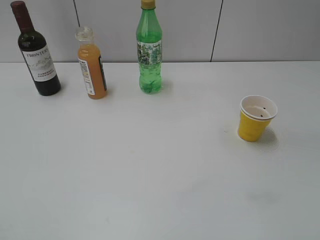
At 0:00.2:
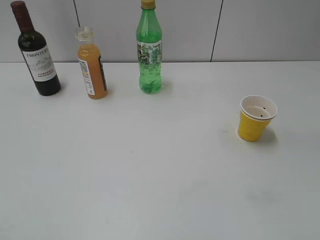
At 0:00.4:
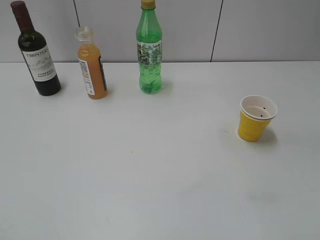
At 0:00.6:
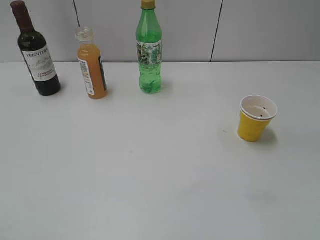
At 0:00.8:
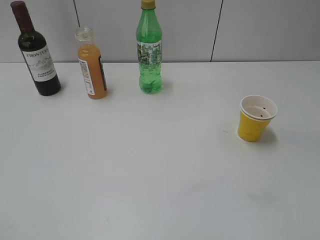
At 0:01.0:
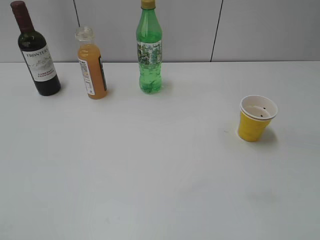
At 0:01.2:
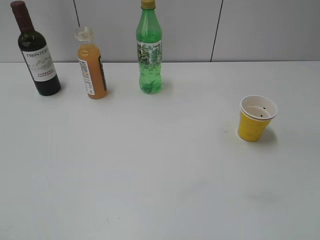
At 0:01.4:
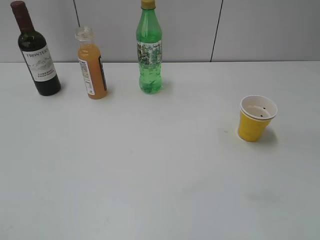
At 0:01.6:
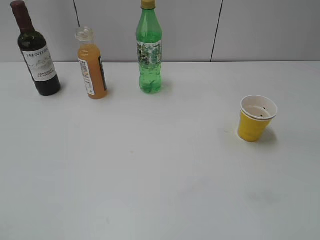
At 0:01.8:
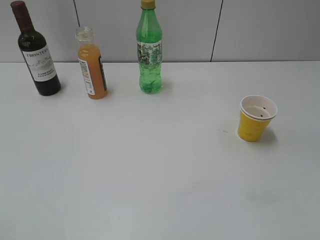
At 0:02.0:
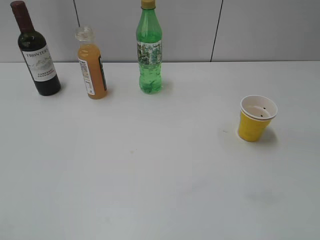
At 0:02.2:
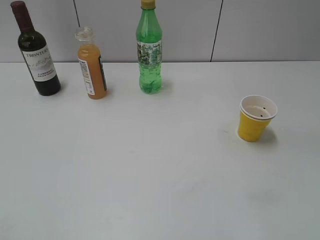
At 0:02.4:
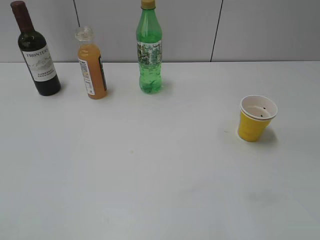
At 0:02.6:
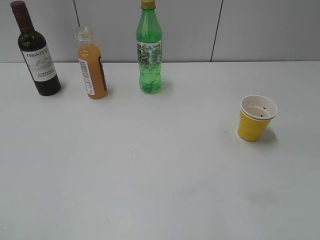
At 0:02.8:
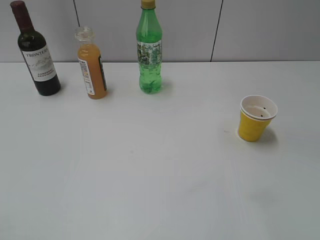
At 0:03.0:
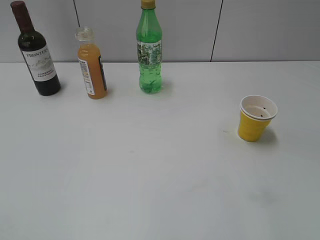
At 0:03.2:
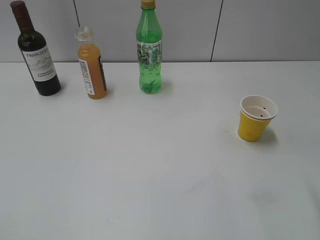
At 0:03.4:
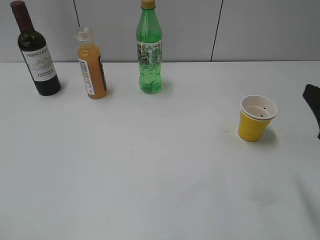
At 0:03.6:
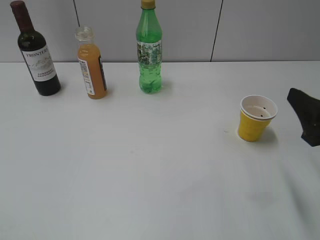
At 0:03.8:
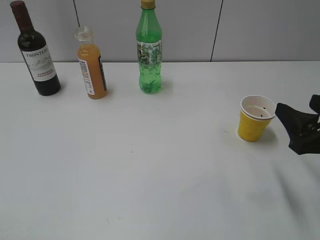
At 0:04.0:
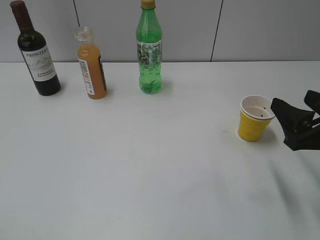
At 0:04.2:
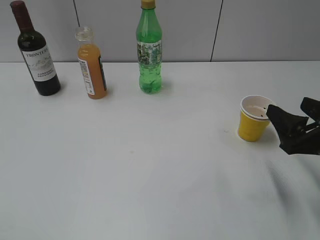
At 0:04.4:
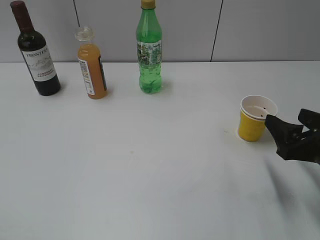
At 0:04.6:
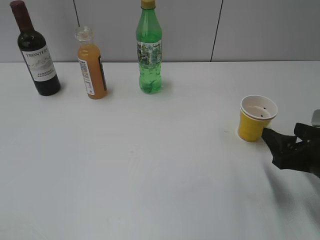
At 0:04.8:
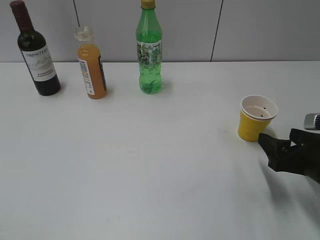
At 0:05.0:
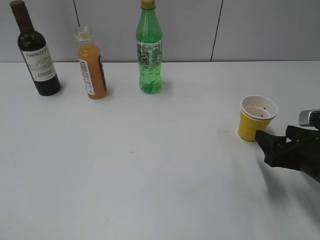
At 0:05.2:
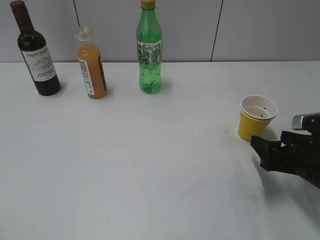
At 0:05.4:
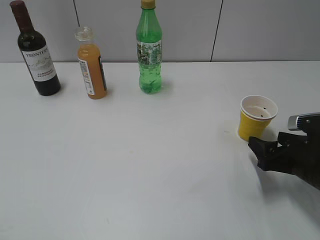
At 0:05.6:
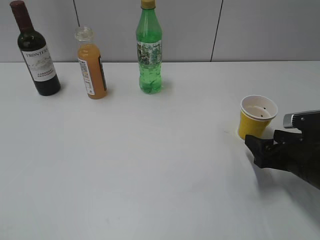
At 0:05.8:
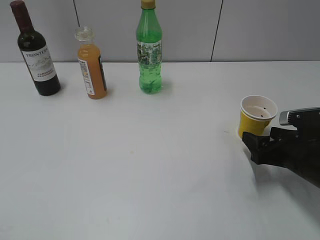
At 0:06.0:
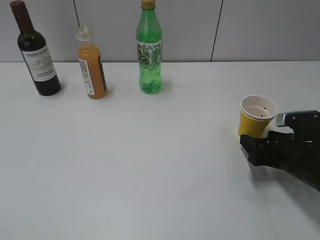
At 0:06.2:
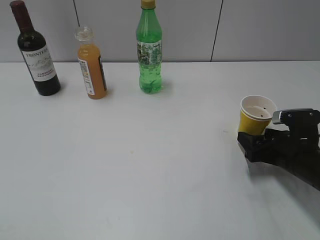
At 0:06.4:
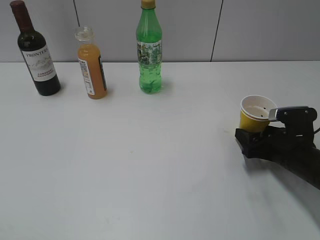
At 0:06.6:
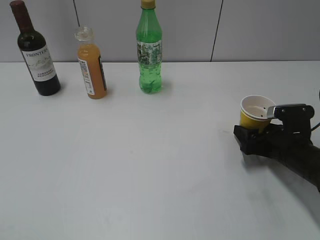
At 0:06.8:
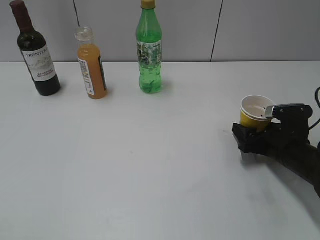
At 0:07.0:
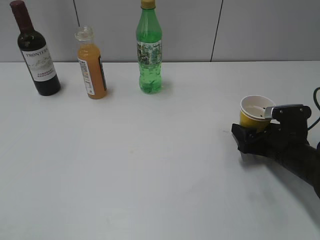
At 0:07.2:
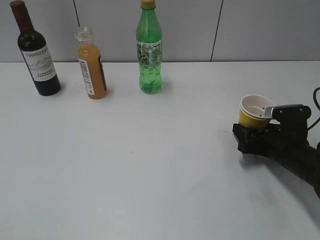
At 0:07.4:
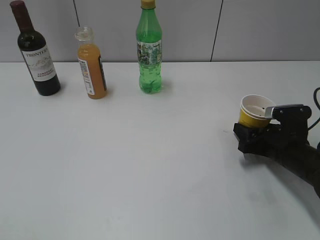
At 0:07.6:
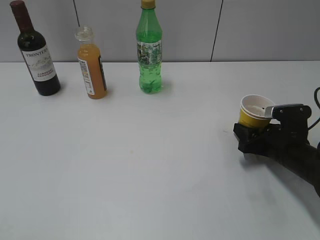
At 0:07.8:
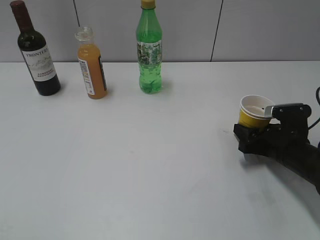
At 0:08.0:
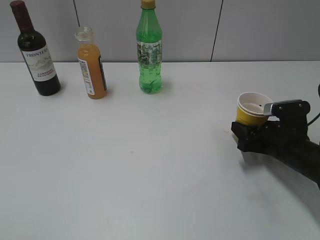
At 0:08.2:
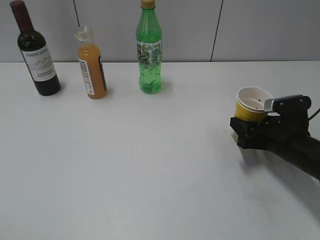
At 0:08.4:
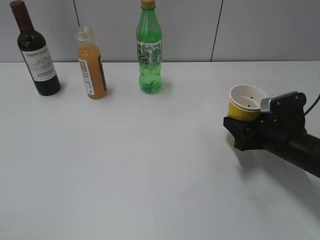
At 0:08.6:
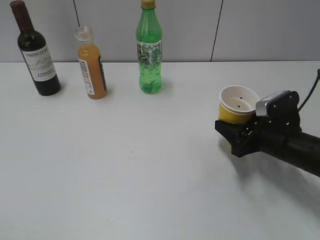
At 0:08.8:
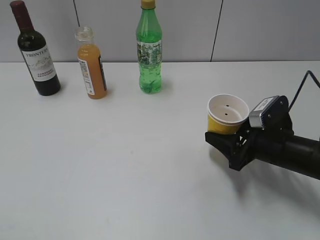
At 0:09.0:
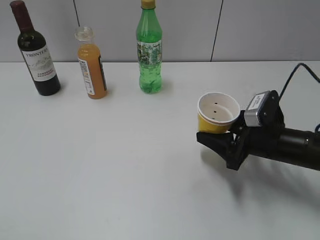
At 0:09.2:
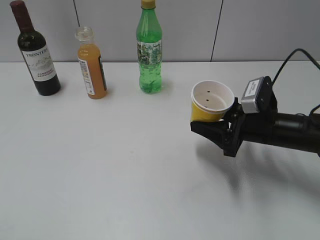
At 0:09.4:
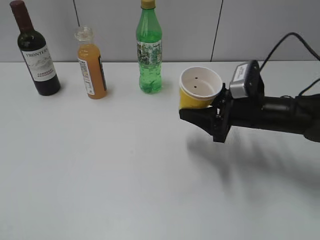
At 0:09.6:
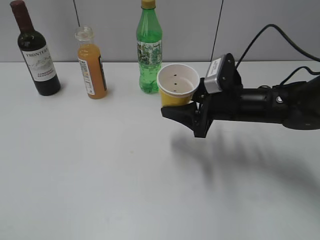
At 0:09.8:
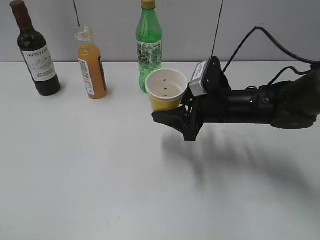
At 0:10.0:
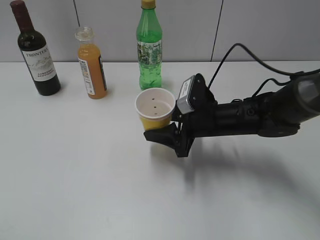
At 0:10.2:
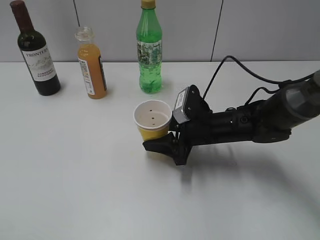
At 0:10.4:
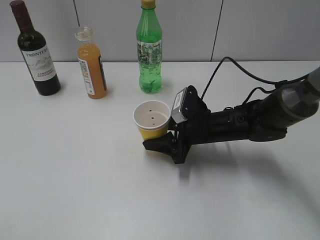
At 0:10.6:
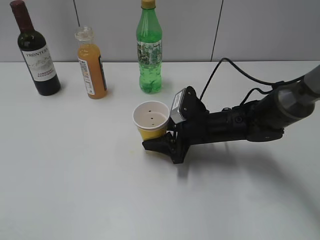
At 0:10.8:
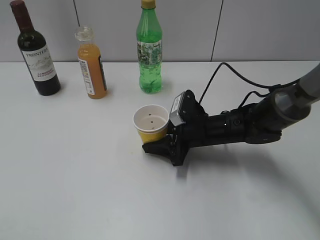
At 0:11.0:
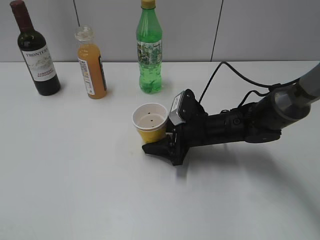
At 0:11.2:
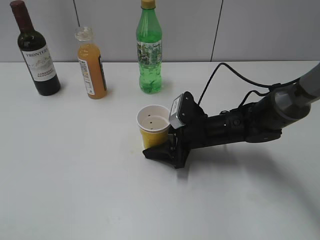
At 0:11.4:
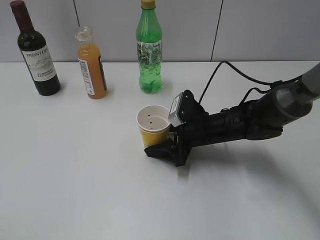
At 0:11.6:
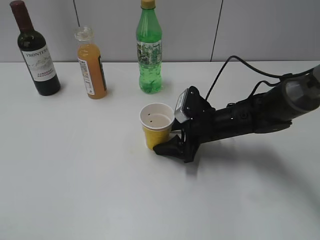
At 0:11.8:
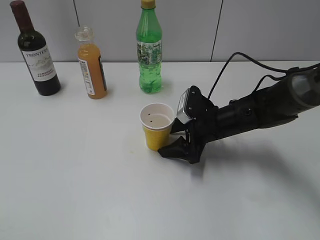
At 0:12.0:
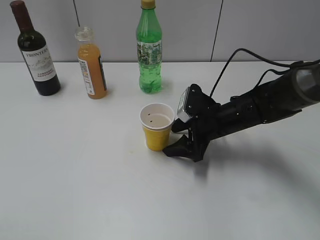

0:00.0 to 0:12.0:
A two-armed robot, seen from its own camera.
Step, 0:03.4 to 0:07.6: Grasp the yellow paper cup with right gripper.
0:03.0 to 0:04.4: The right gripper is displaced downward and forward by roughly 15 cm.
0:04.4 to 0:06.0: The right gripper moves downward, some 10 cm.
0:06.0 to 0:07.6: The right gripper closes up.
0:07.6 to 0:09.0: The right gripper moves some 5 cm.
0:09.0 to 0:10.4: The right gripper heads to the left and forward, covering some 10 cm.
0:10.4 to 0:12.0: The right gripper opens up.

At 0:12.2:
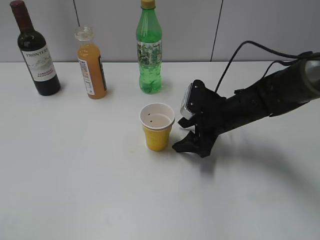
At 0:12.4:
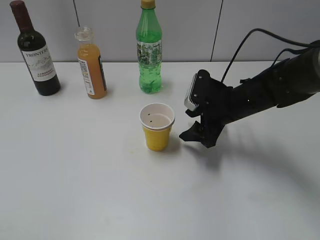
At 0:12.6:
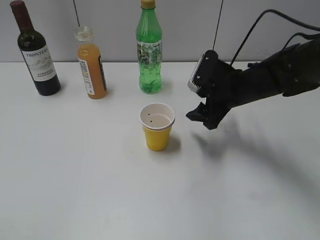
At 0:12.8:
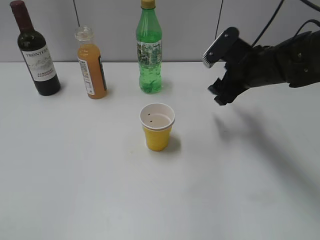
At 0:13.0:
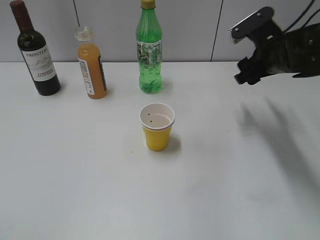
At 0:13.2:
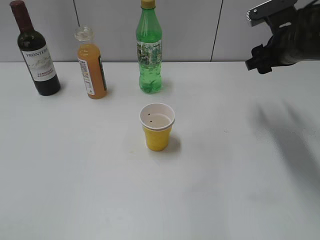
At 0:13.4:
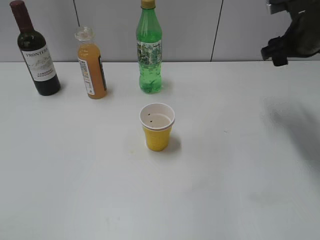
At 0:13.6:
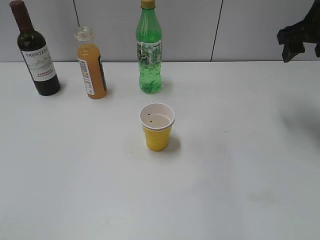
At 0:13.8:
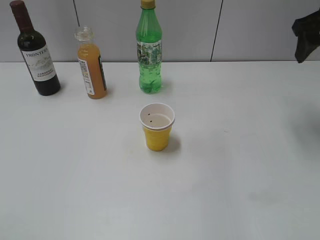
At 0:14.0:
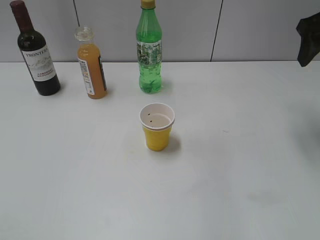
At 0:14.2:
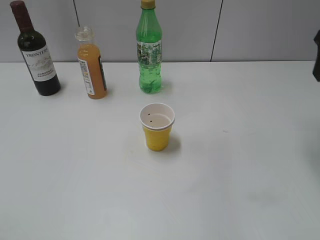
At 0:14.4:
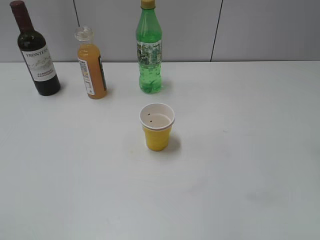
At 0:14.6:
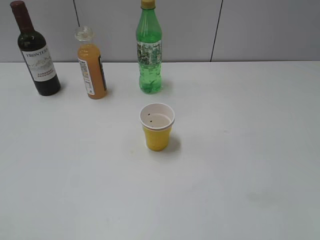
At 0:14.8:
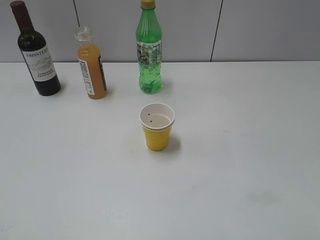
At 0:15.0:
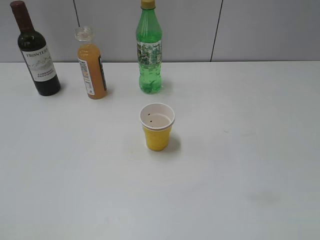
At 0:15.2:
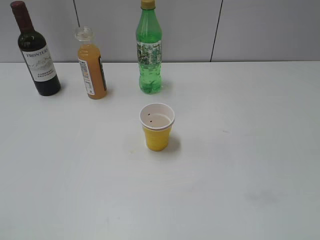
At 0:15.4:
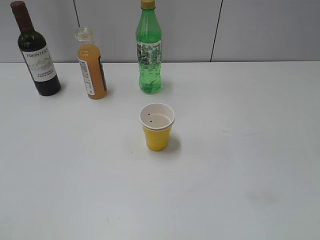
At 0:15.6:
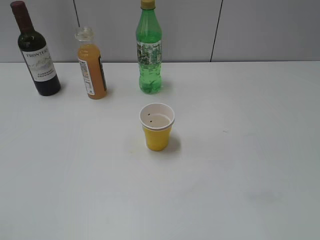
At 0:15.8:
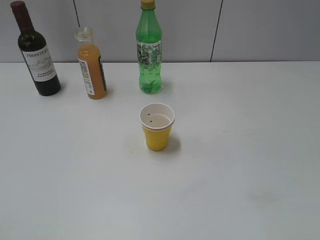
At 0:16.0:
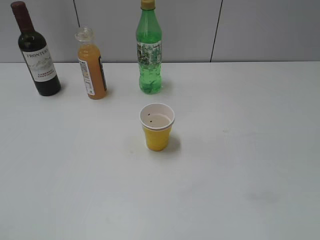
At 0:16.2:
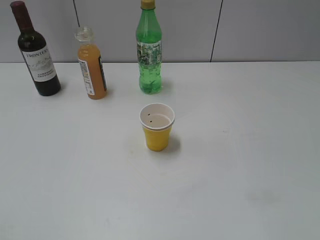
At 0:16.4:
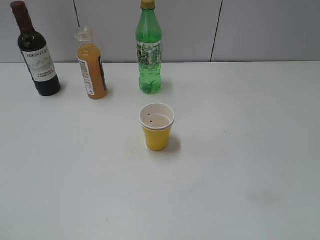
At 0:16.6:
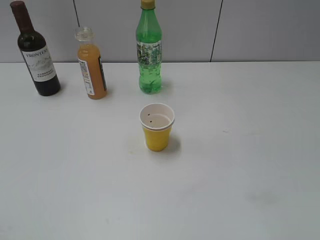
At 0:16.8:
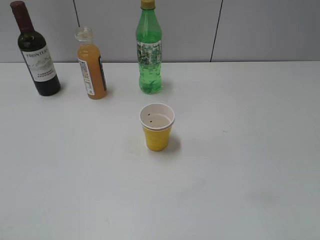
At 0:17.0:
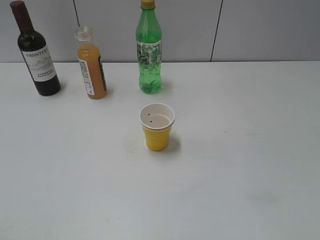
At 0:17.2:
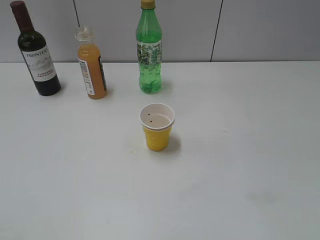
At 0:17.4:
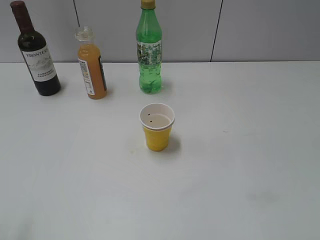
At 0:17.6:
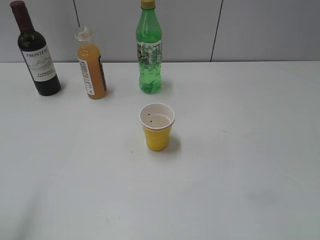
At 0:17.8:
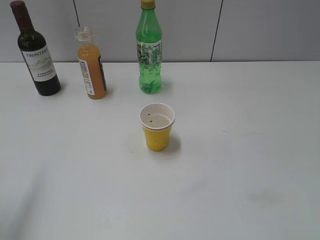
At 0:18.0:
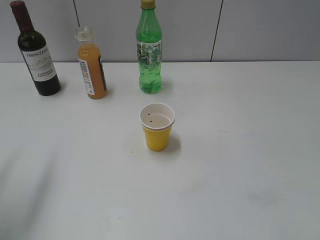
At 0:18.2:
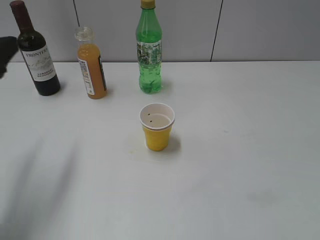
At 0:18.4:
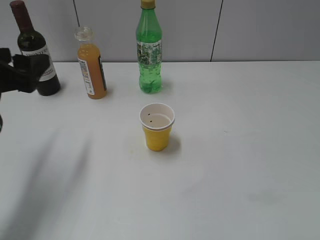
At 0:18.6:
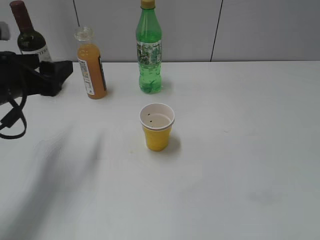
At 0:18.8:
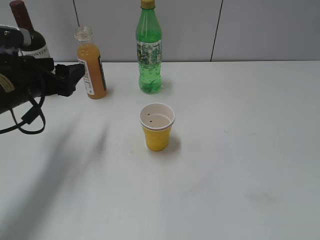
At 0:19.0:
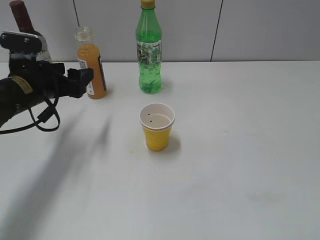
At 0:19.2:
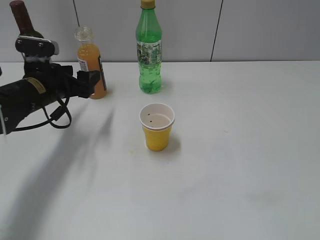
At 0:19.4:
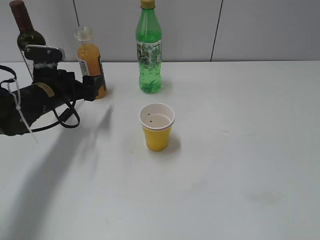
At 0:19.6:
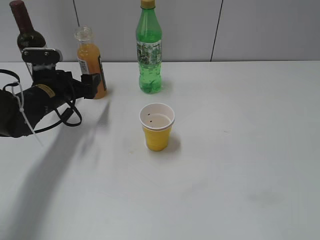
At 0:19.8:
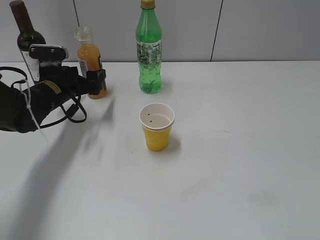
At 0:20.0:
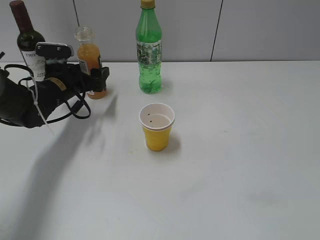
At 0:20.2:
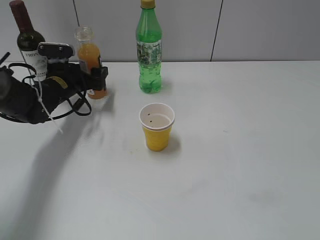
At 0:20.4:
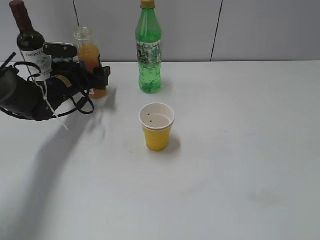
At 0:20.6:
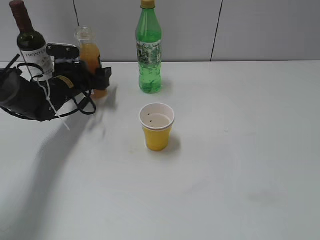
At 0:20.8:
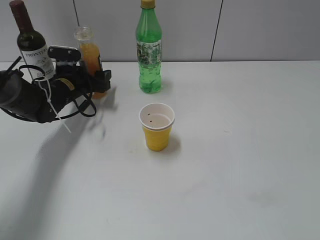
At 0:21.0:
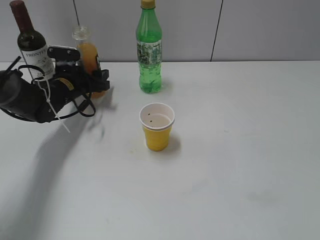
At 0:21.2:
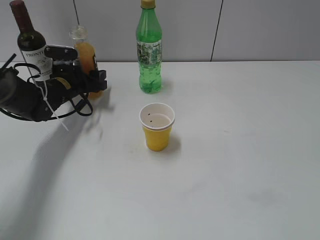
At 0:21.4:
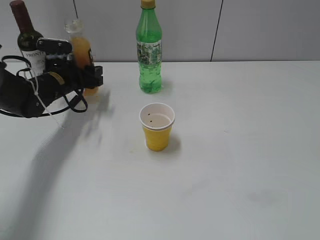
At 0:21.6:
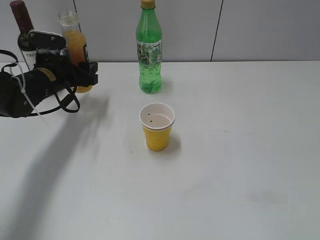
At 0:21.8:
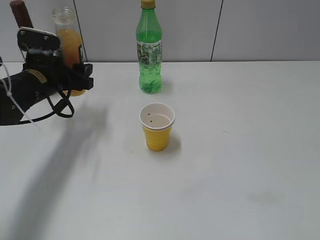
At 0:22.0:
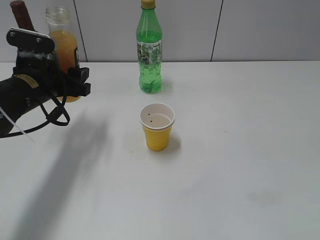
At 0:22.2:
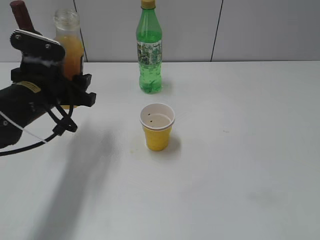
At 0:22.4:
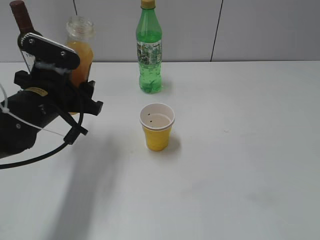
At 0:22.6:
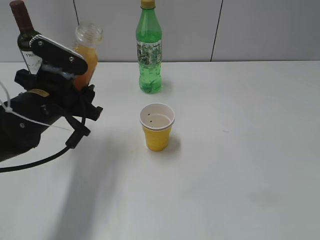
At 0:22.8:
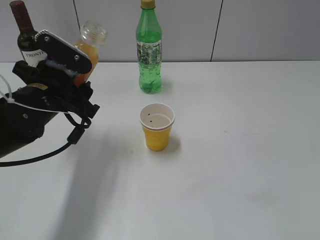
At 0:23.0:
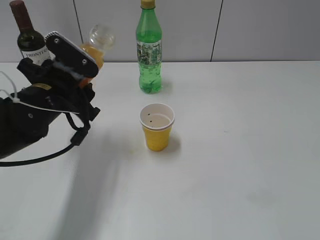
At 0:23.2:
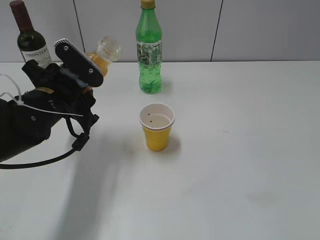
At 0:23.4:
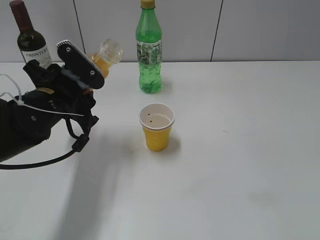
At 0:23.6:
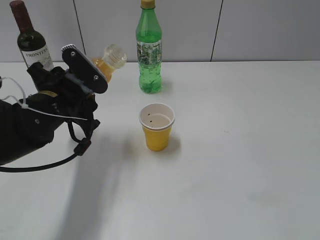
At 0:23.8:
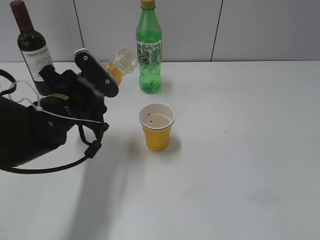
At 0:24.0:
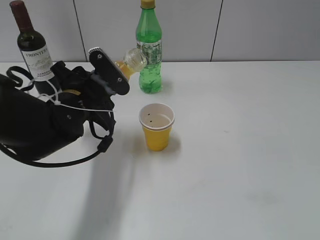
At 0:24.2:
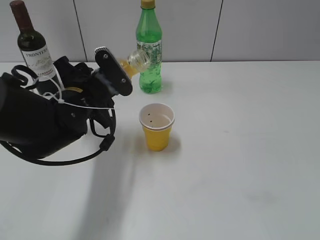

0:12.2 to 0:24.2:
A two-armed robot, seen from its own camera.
Step, 0:12.4 to 0:21.0: Grasp the bottle with orange juice with left gripper.
0:12.2 to 0:13.8: The right gripper heads upward and to the right, covering some 25 cm.
0:13.8 to 0:15.2: The right gripper shifts roughly 35 cm backward.
0:16.6 to 0:18.2: The left gripper is displaced forward by some 25 cm, and opens.
0:18.2 to 0:19.8: The left gripper travels forward and downward by some 25 cm.
0:19.8 to 0:21.2: The left gripper moves forward, roughly 5 cm, and closes.
0:21.2 to 0:22.6: The left gripper goes approximately 20 cm backward and upward.
